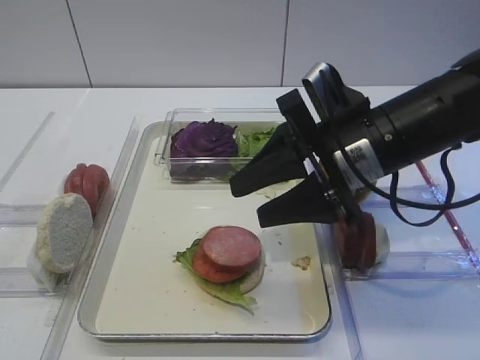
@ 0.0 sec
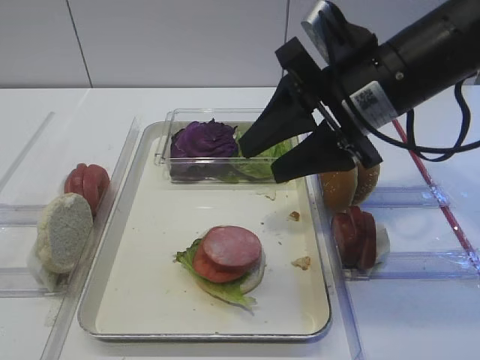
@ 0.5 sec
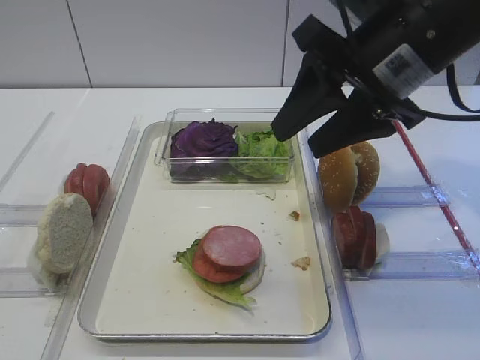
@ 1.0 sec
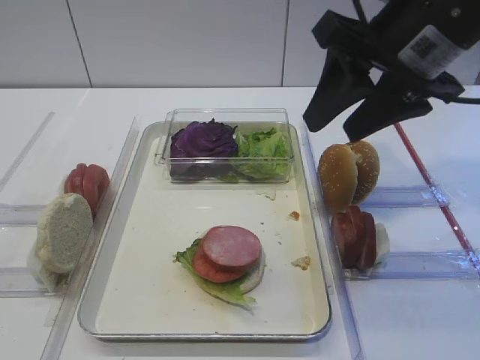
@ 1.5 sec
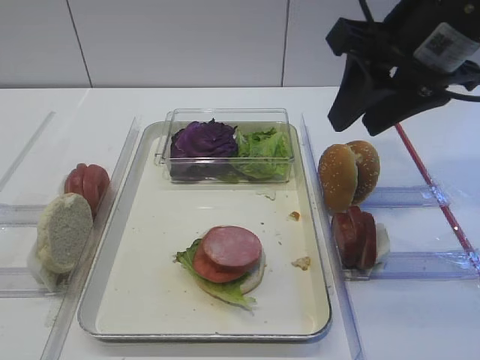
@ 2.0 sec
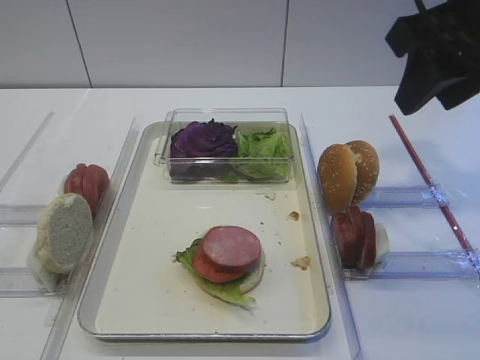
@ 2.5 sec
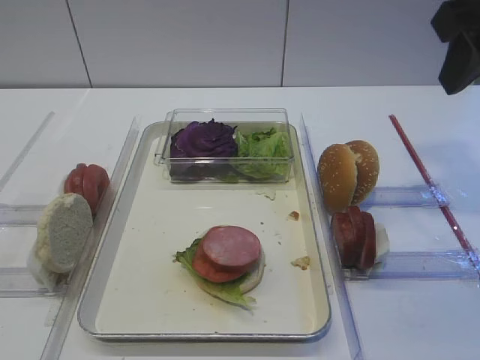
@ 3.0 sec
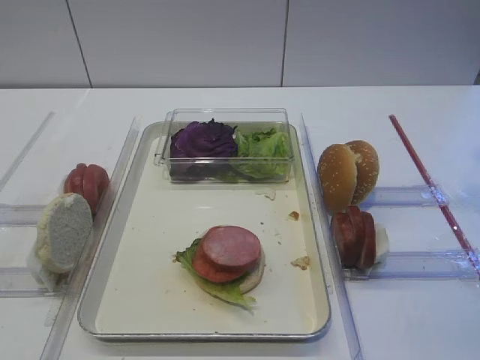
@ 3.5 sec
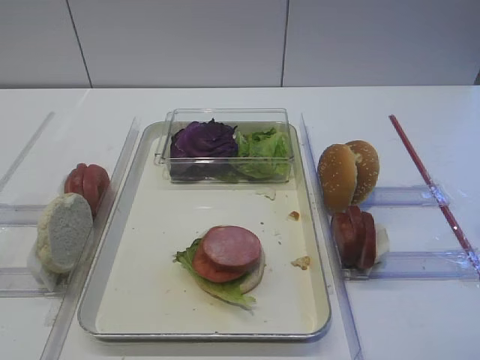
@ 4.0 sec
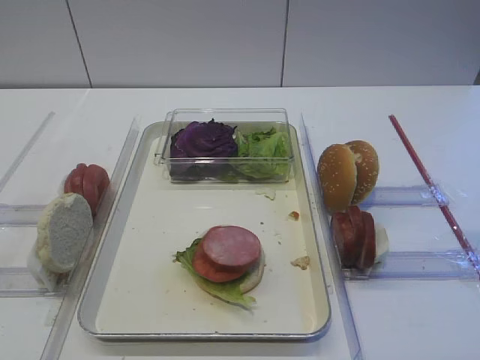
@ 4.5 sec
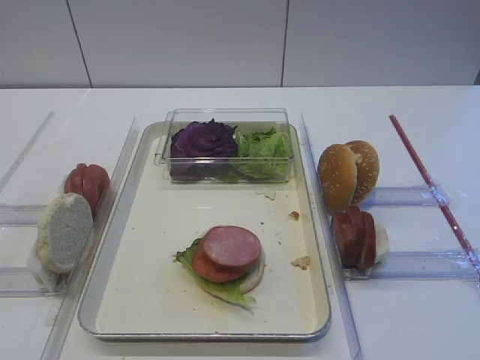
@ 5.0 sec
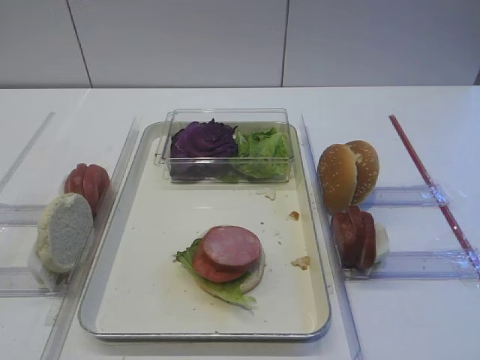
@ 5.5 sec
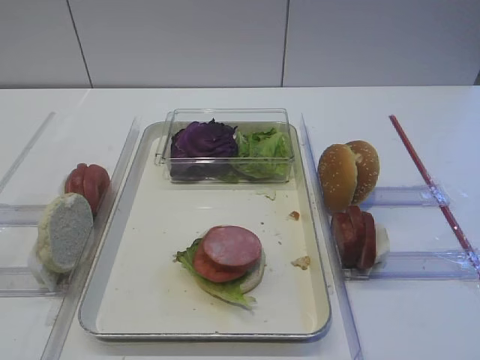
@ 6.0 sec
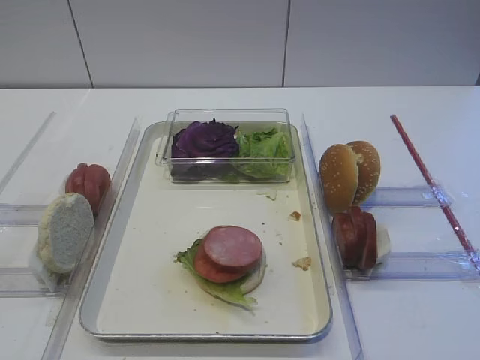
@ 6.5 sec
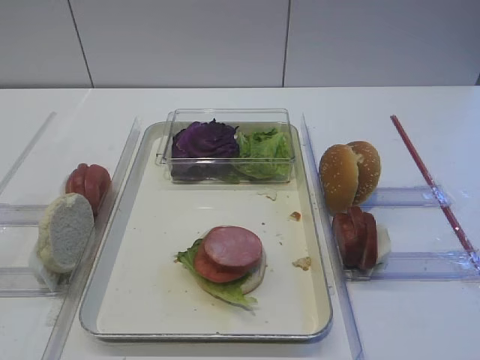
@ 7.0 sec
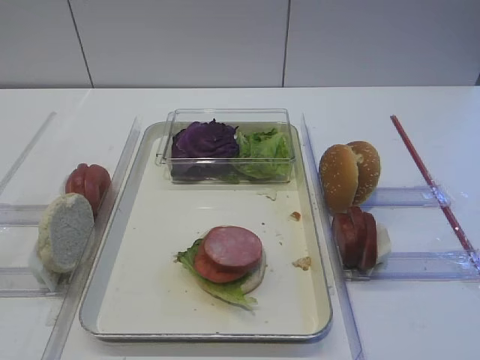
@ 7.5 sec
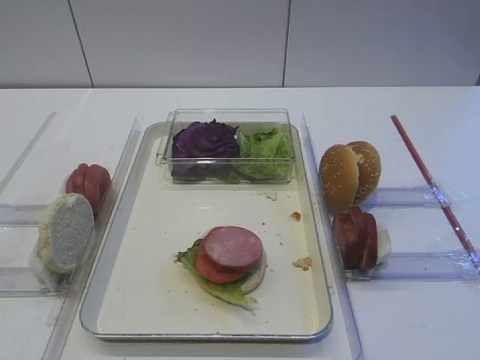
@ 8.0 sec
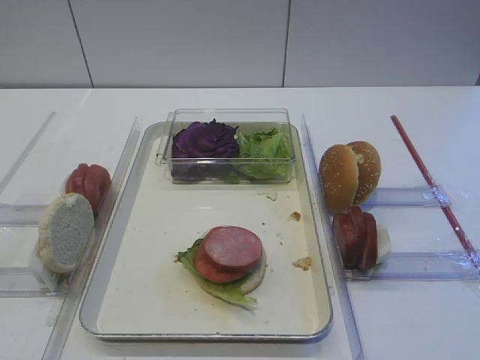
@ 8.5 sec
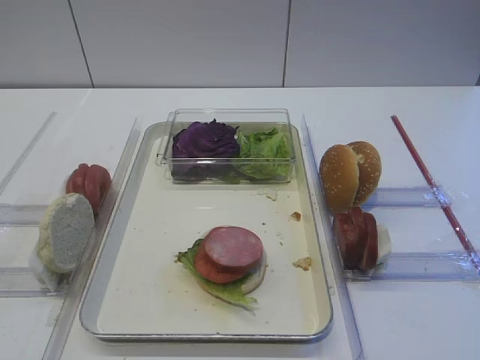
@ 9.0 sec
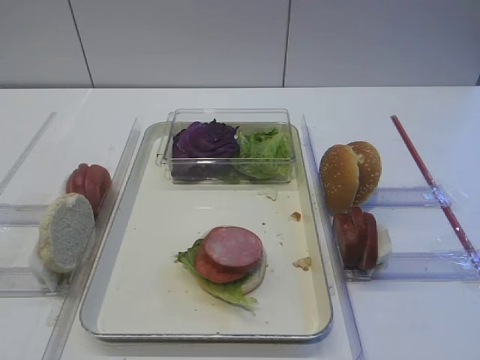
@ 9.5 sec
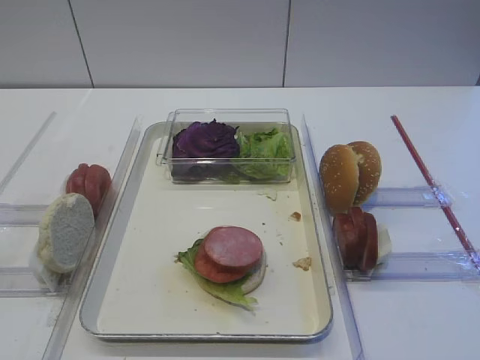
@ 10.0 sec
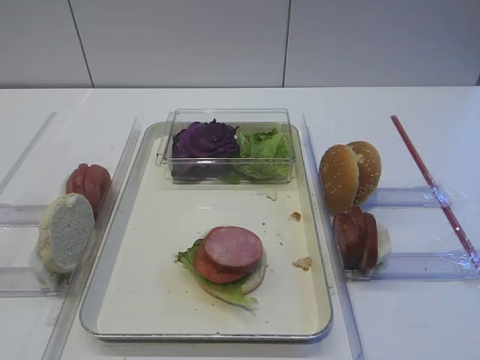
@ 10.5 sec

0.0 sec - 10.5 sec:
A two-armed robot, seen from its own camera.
0.0 sec - 2.0 sec: The right gripper travels upward by some 10 cm.
2.0 sec - 4.0 sec: The right gripper travels to the right, backward and upward by roughly 15 cm.
4.0 sec - 6.5 sec: The right gripper travels backward and downward by roughly 20 cm.
6.5 sec - 10.5 sec: Both grippers stay put.

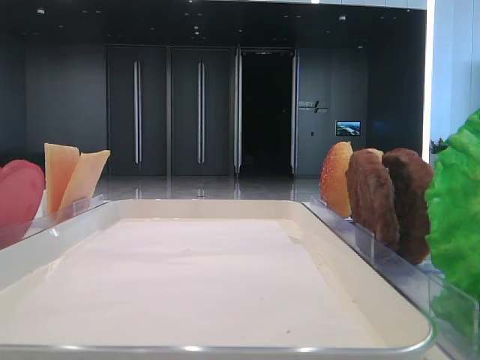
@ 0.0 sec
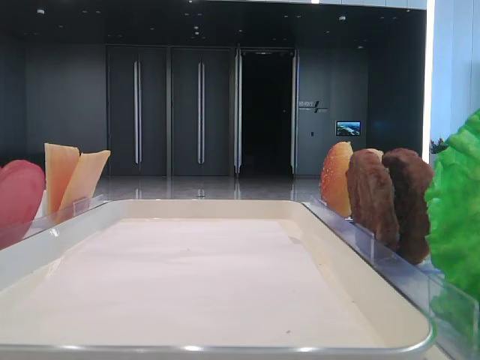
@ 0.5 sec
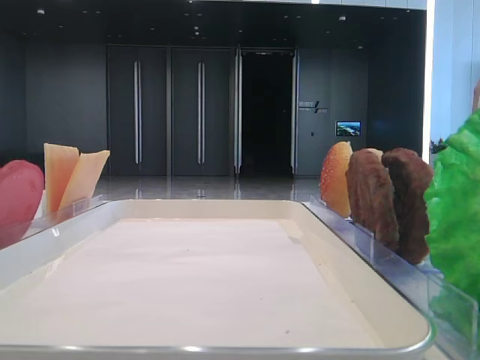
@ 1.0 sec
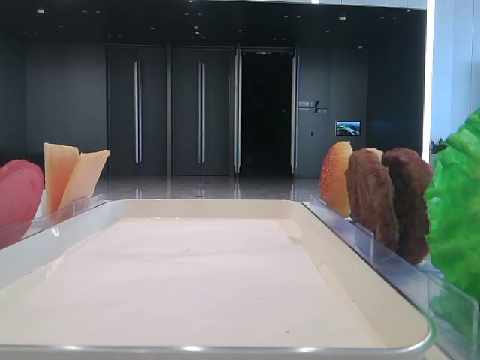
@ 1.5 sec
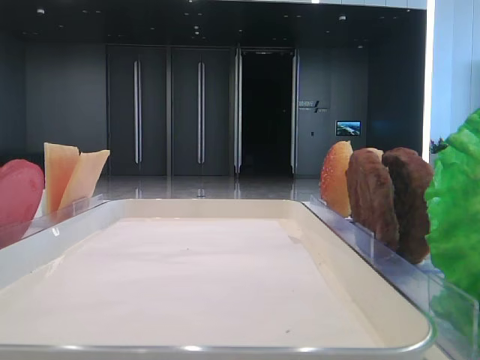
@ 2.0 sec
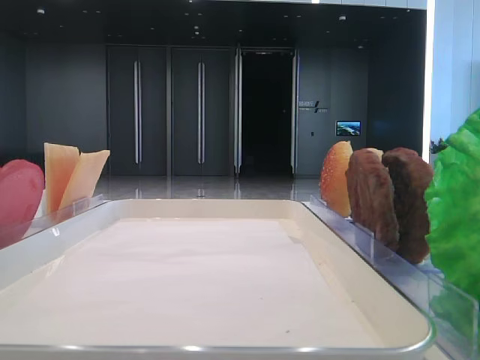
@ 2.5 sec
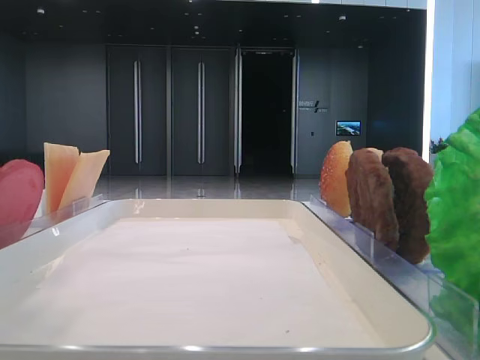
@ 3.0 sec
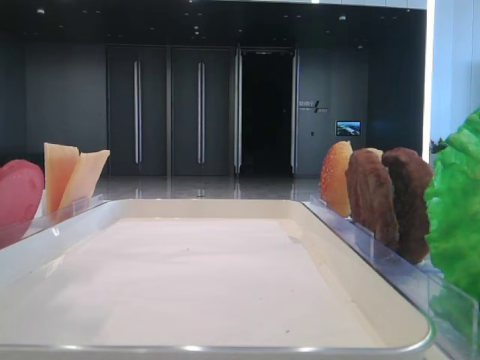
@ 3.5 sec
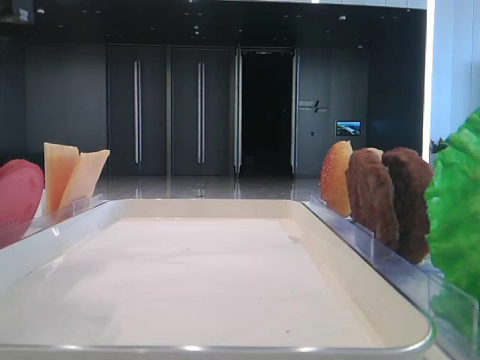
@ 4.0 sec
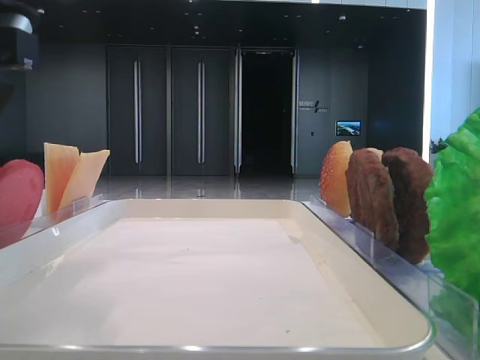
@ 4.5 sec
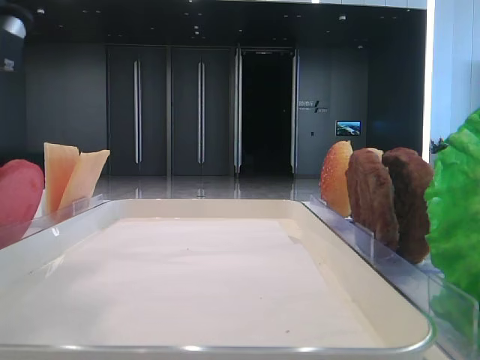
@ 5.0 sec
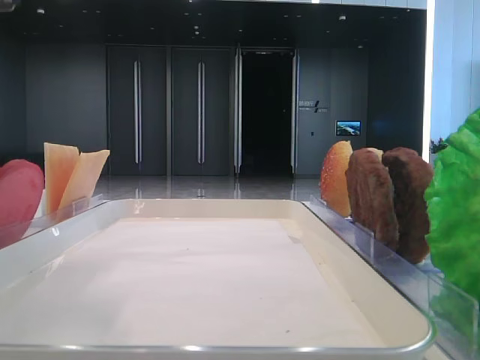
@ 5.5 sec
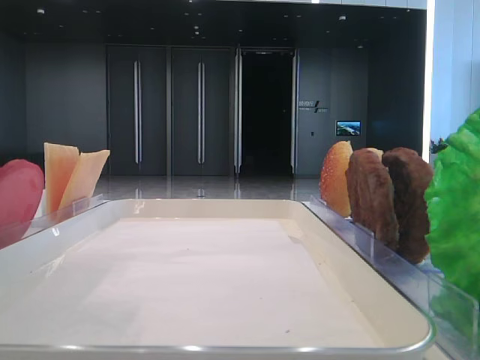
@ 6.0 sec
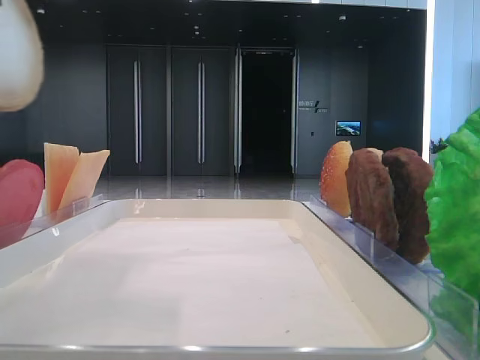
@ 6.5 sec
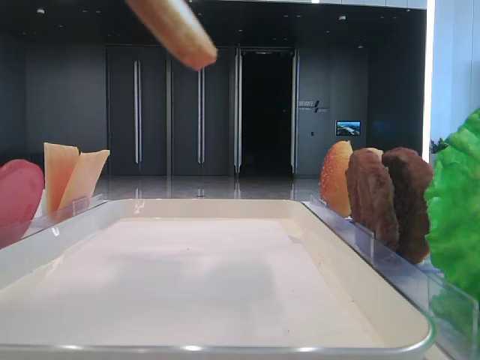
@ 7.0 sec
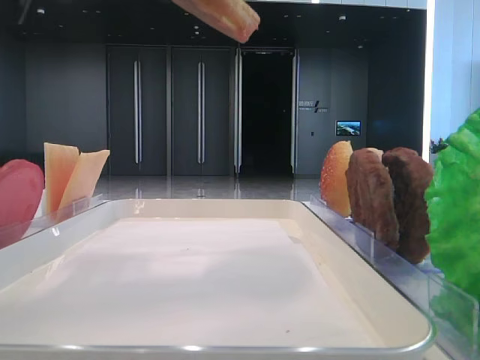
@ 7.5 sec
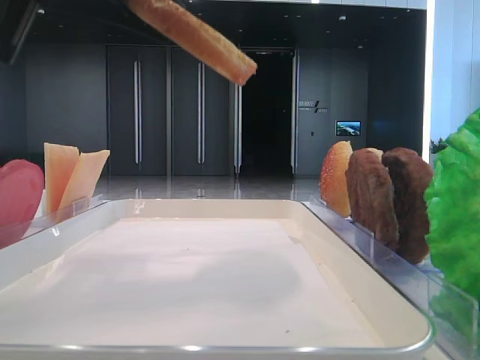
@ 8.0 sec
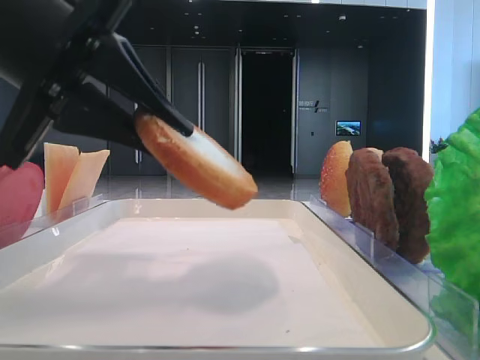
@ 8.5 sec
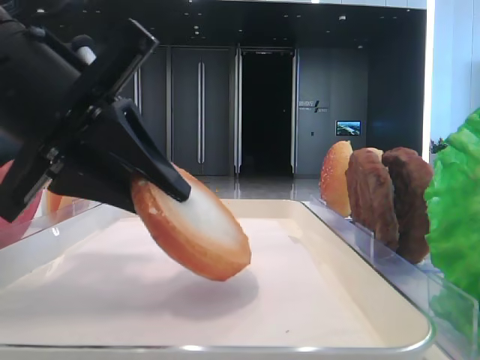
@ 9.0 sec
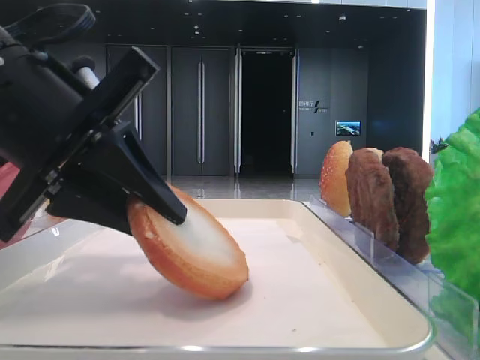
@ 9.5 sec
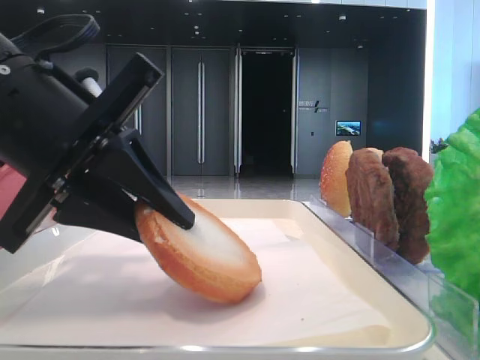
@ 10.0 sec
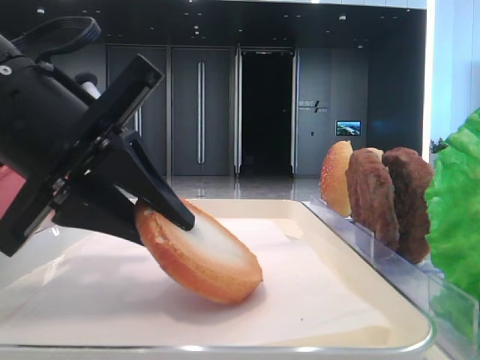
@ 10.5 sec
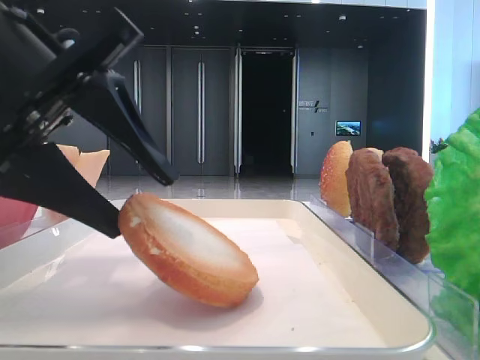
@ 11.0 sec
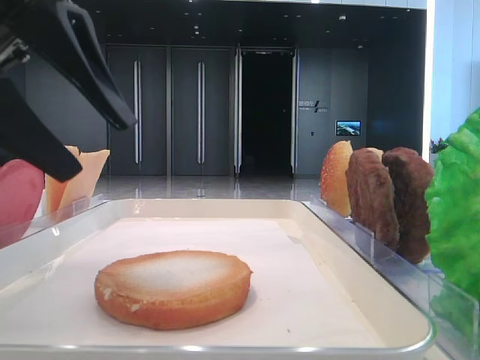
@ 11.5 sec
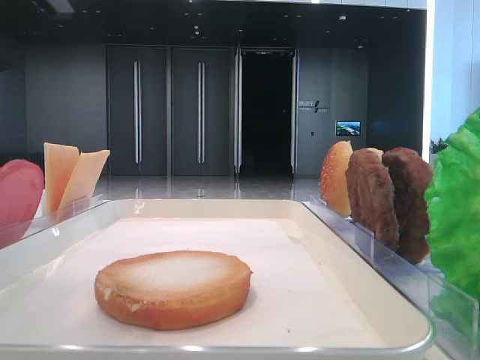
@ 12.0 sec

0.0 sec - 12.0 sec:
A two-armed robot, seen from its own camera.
Step, 5.5 sec - 11.0 sec: Place the bread on the tray with the left hand.
2.0 sec - 4.0 sec: The left gripper goes about 15 cm to the right and downward.
6.0 sec - 8.0 sec: The left gripper heads downward, covering some 5 cm.
8.0 sec - 10.0 sec: The left gripper is displaced downward by some 10 cm.
10.0 sec - 12.0 sec: The left gripper travels upward and backward by roughly 15 cm, and opens up.

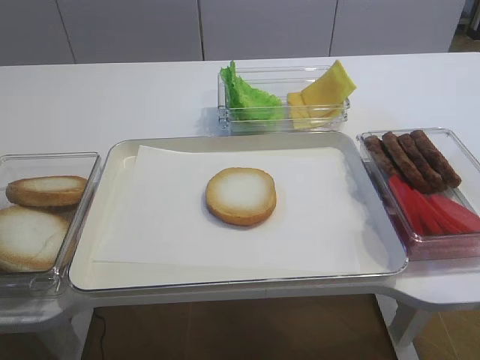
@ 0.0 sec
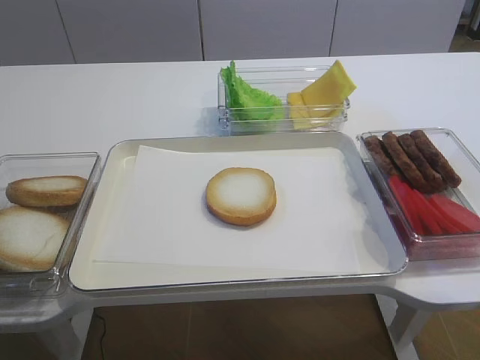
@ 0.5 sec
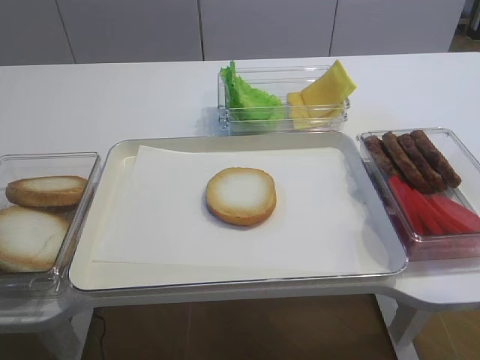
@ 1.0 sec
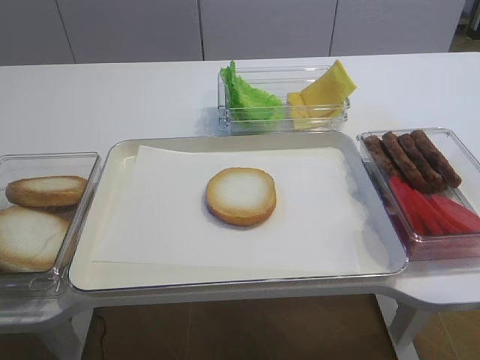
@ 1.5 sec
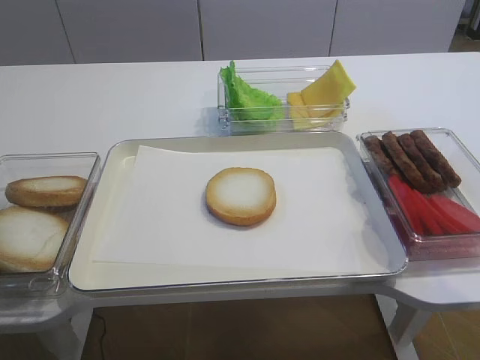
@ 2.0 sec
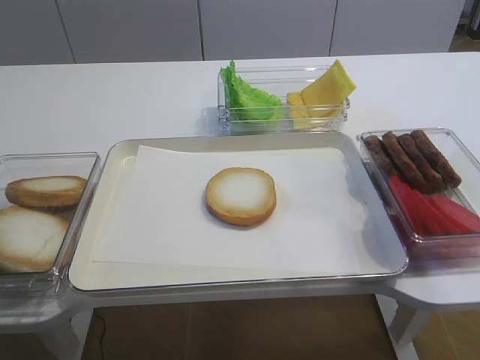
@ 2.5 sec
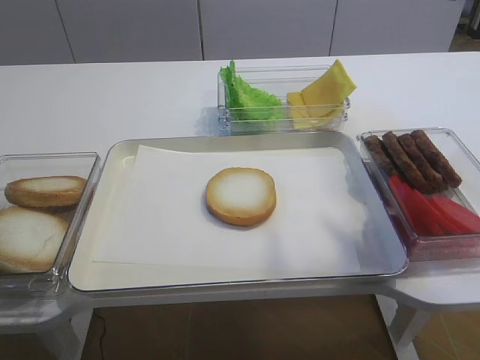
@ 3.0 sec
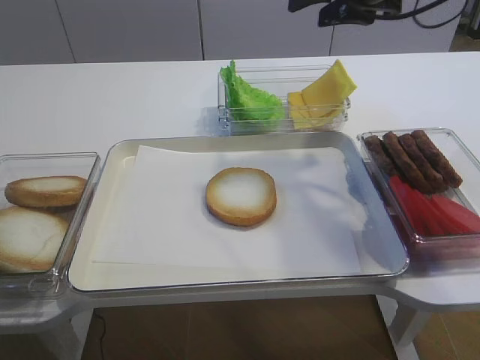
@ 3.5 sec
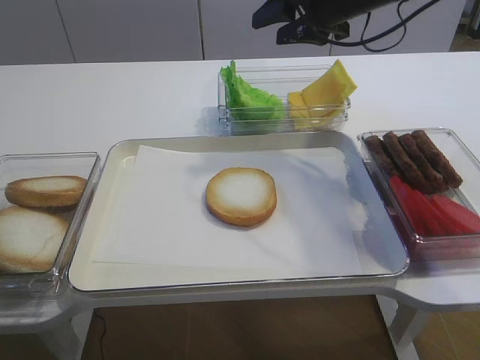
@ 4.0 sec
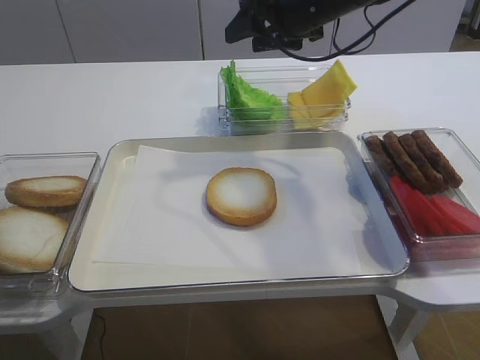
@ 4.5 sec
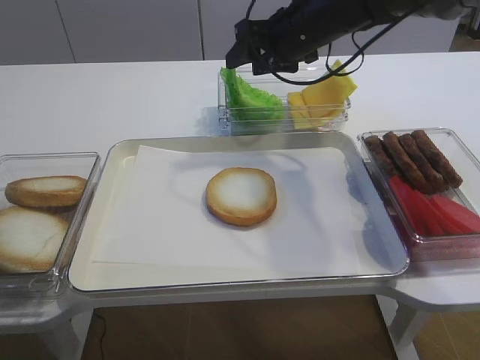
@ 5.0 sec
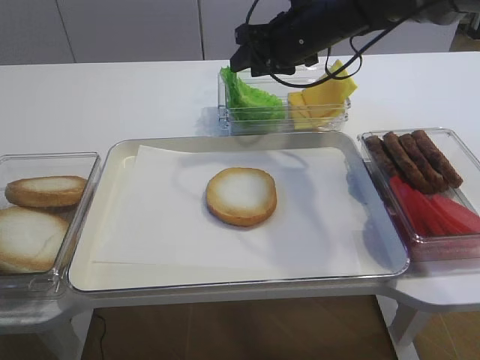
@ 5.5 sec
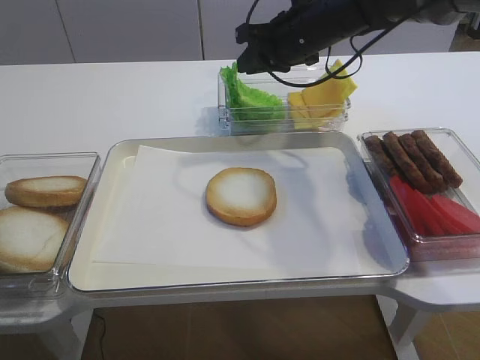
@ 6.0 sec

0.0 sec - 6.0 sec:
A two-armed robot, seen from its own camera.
2.0 sec - 4.0 sec: The right gripper goes about 50 cm forward.
4.0 sec - 6.0 sec: The right gripper shifts by approximately 5 cm, and closes its fingers.
